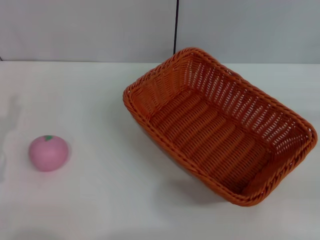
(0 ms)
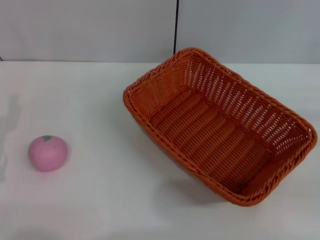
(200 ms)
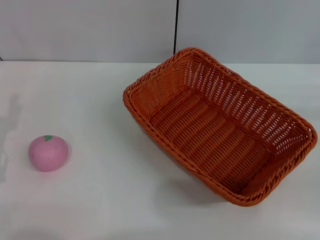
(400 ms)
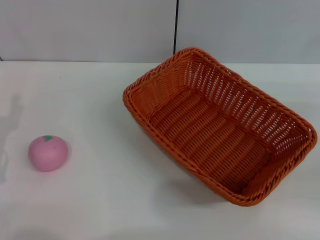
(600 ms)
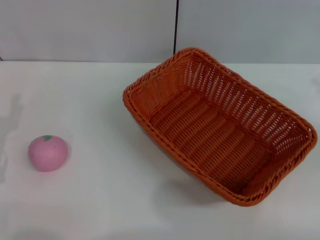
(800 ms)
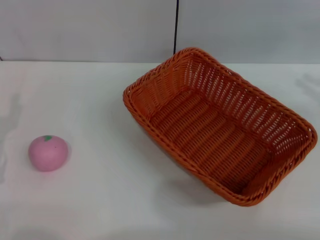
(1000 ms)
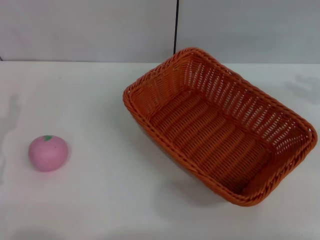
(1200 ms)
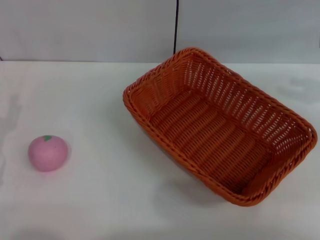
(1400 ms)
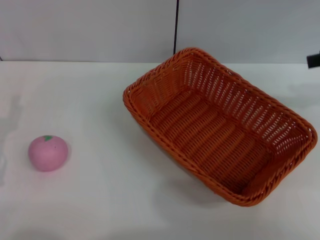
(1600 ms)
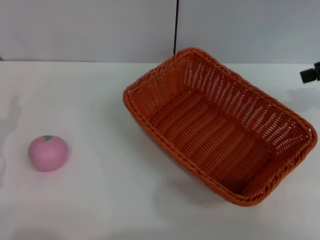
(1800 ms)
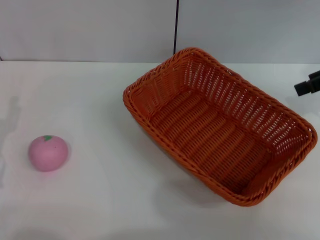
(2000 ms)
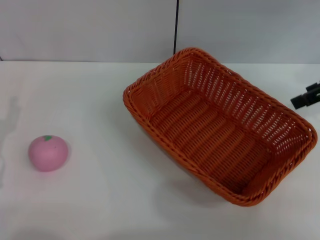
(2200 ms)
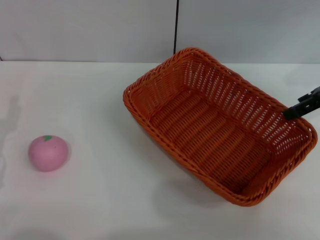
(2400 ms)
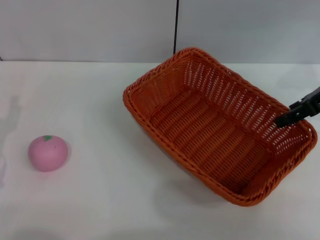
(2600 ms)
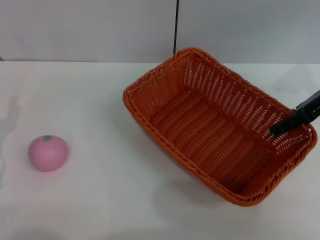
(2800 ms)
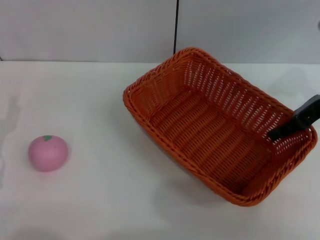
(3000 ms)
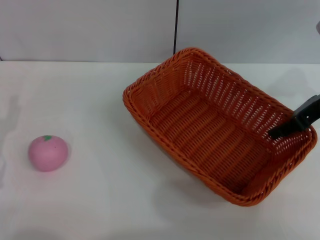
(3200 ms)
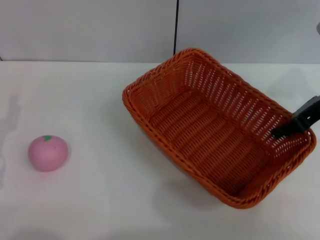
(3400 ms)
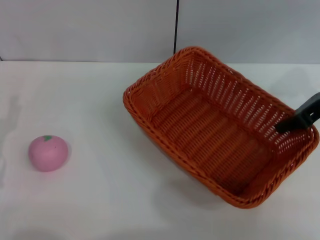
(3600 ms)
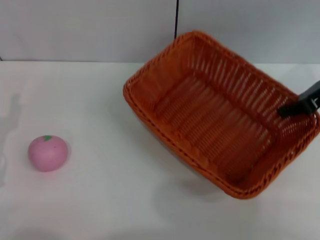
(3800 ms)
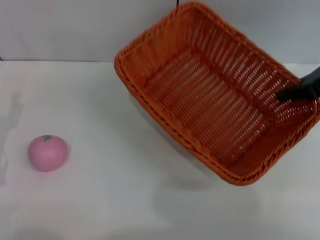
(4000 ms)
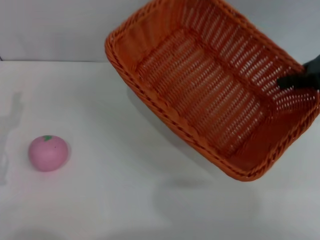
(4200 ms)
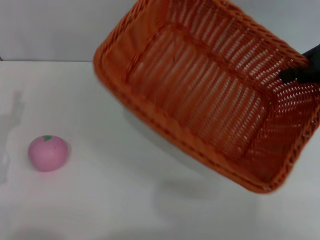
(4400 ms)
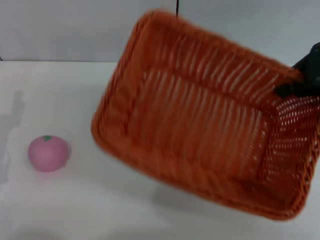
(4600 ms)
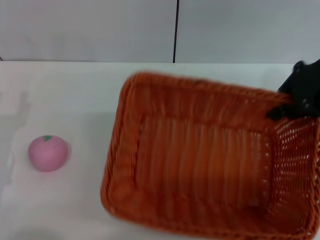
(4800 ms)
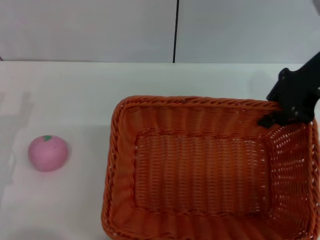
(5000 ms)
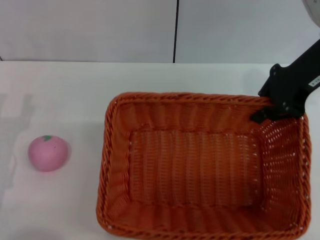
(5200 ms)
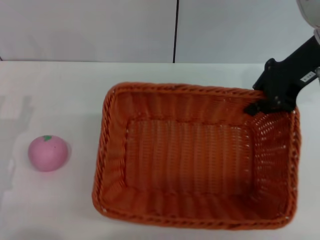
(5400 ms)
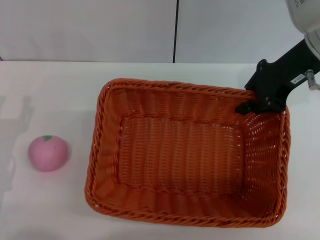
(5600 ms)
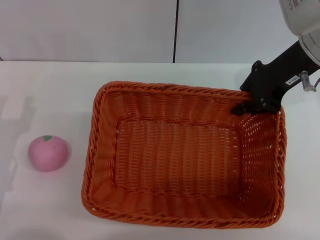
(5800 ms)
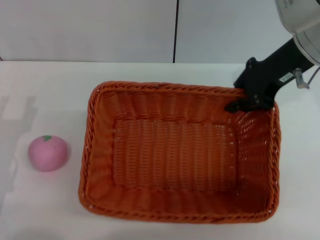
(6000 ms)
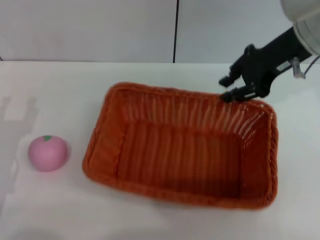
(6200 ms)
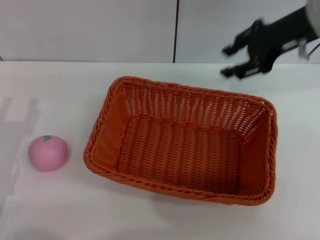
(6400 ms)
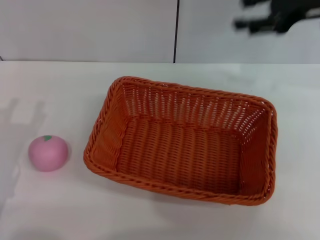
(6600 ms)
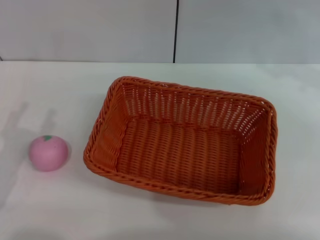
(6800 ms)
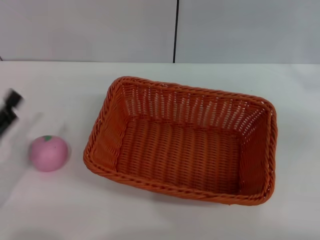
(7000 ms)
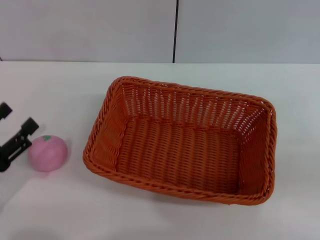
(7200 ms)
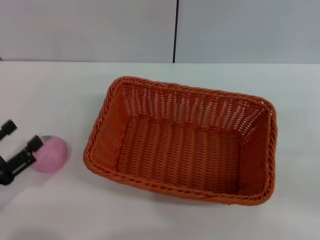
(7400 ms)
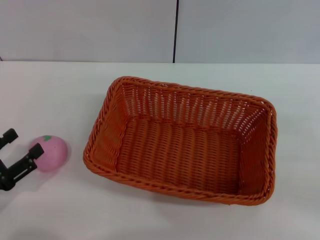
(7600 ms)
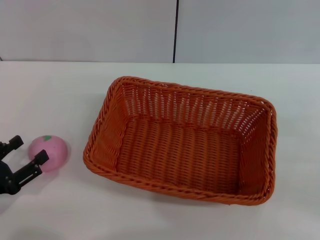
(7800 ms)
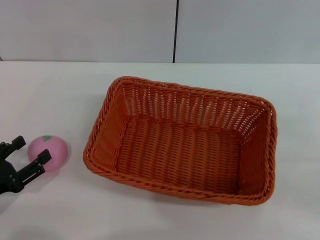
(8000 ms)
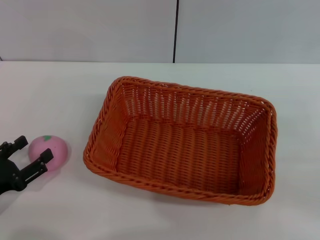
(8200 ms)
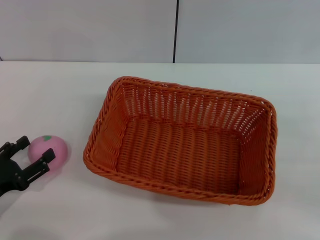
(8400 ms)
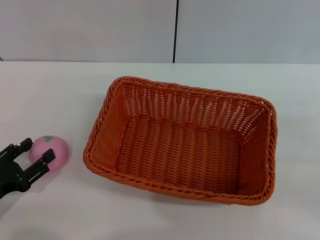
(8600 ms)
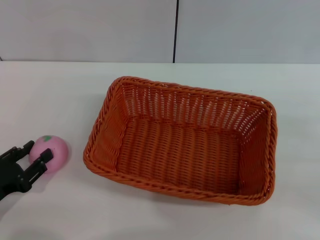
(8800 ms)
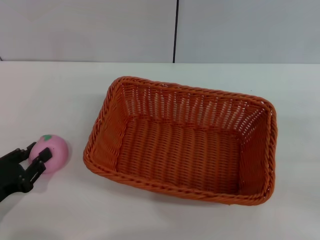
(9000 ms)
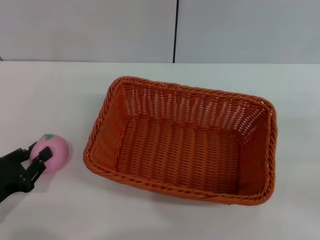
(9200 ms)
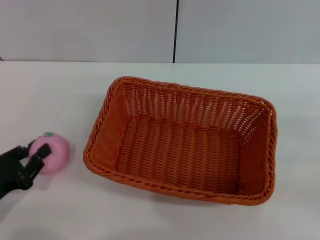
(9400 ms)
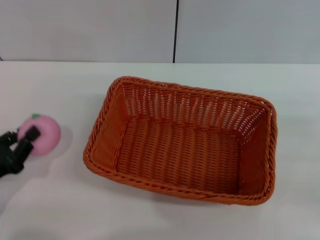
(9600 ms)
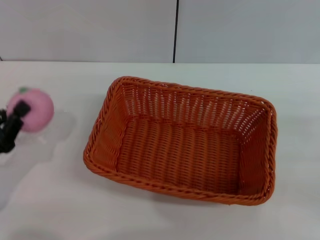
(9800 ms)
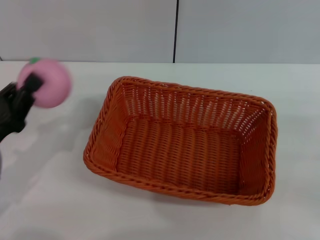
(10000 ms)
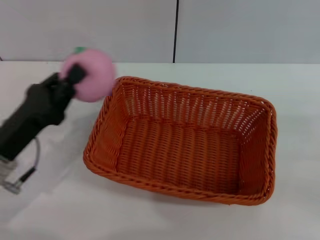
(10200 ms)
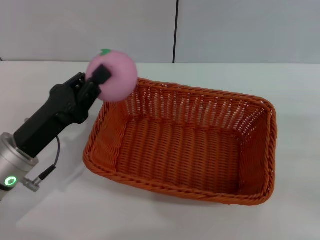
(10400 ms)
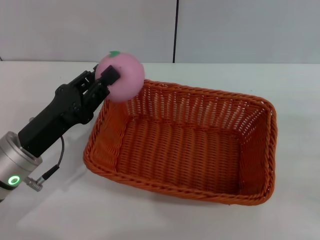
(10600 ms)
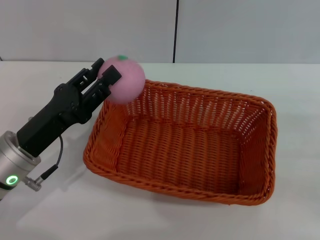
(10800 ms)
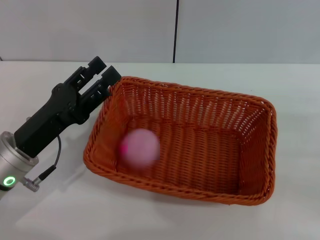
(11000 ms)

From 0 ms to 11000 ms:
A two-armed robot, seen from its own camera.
Step, from 0 ms to 3600 ms: Pick up the light basket with the right gripper.
Step, from 3800 ms to 6200 ms: Place the light basket in the center of view with the right gripper.
Step, from 6400 ms to 9600 ms: Pick up the peach with the left gripper.
From 0 ms to 1600 ms: The right gripper shifts about 20 cm upward and forward, and opens up.
From 1600 ms to 3200 ms: The right gripper heads to the left and downward, covering approximately 10 cm.
From 3200 ms to 4800 ms: The right gripper heads upward, covering some 5 cm, and closes.
From 4800 ms to 6200 ms: The right gripper ends up roughly 5 cm from where it was.
From 6200 ms to 7800 ms: The left gripper shifts by about 5 cm. Meanwhile the right gripper travels to the right, backward and downward by about 30 cm, and opens up.
From 7800 ms to 9400 ms: The left gripper closes up.
From 9400 ms to 11000 ms: The left gripper goes about 15 cm to the right, forward and upward.

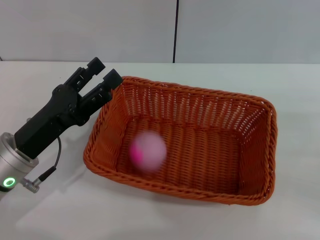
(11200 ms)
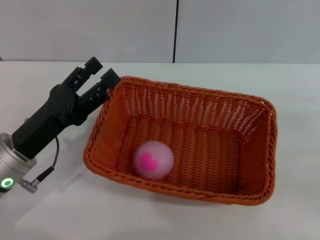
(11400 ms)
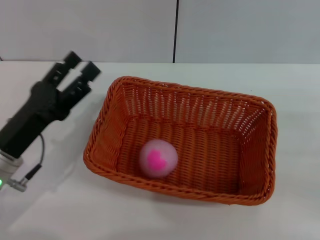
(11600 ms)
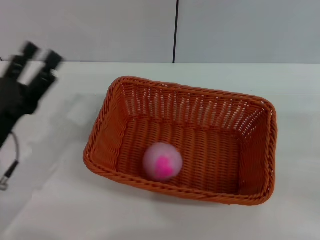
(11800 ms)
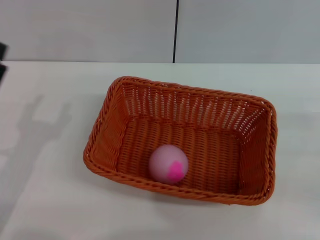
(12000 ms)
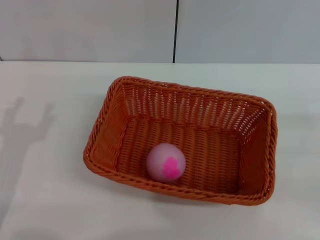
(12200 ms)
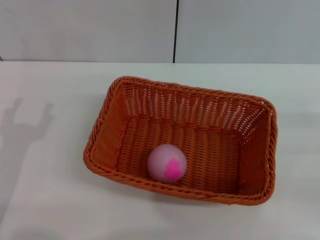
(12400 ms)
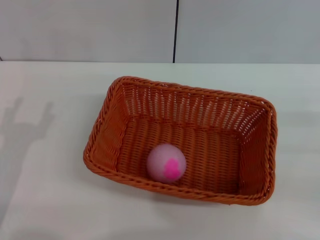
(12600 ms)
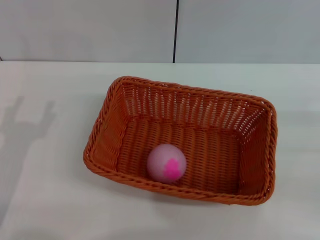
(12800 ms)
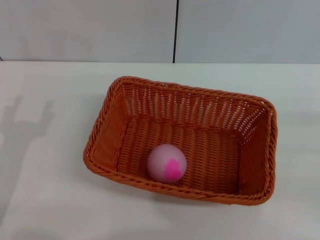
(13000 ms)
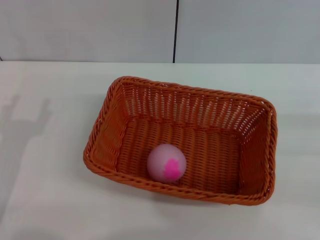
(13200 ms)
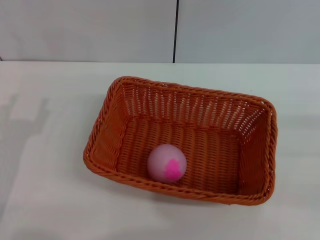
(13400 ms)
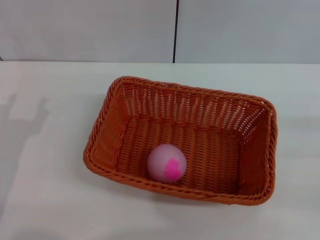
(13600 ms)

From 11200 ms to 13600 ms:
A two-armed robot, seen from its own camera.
From 11200 ms to 12400 ms: The left gripper goes roughly 5 cm to the left.

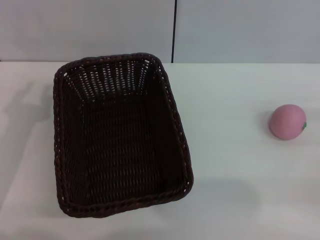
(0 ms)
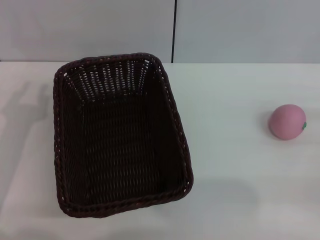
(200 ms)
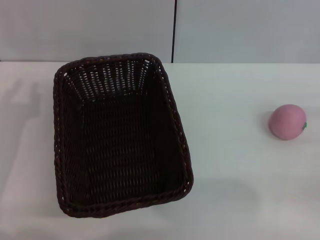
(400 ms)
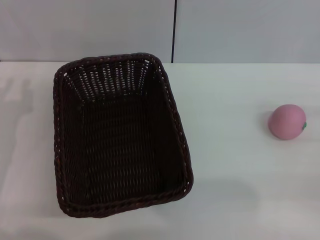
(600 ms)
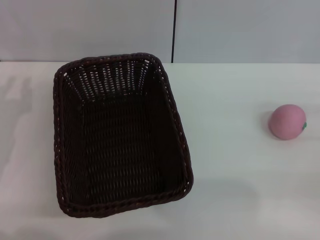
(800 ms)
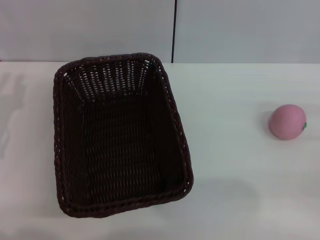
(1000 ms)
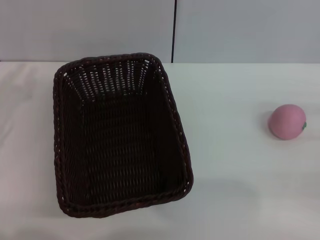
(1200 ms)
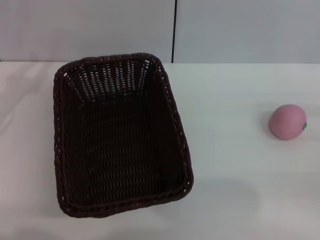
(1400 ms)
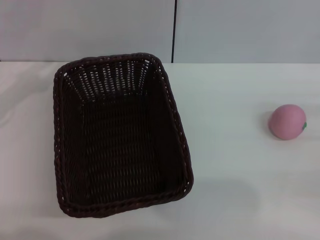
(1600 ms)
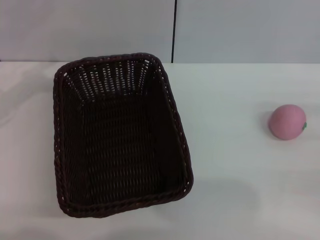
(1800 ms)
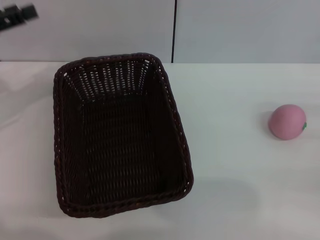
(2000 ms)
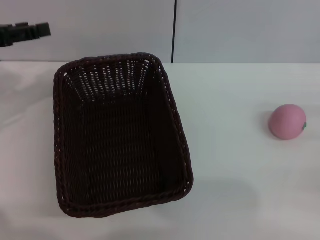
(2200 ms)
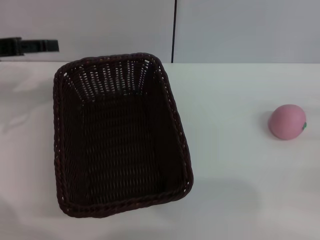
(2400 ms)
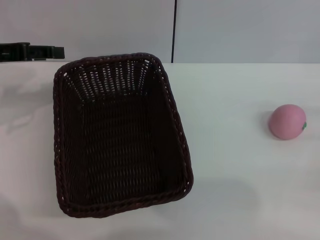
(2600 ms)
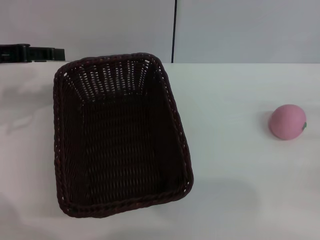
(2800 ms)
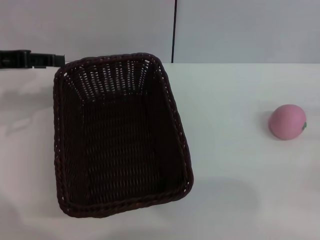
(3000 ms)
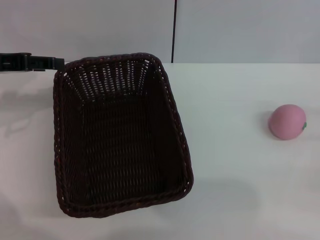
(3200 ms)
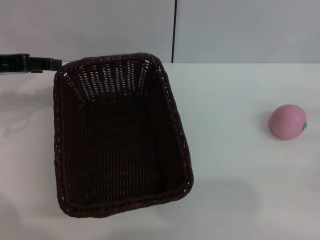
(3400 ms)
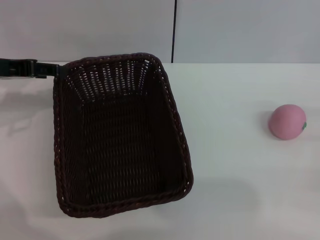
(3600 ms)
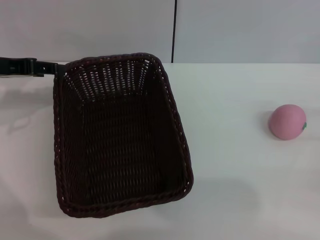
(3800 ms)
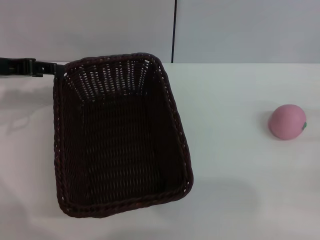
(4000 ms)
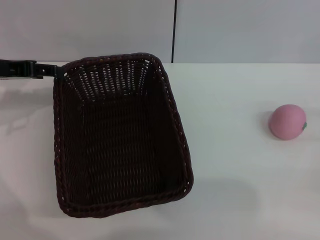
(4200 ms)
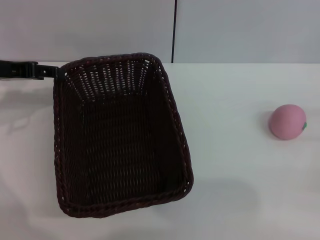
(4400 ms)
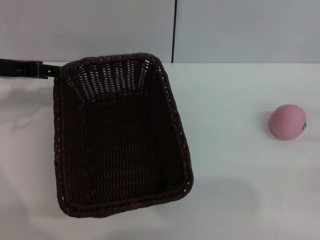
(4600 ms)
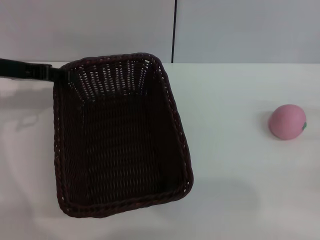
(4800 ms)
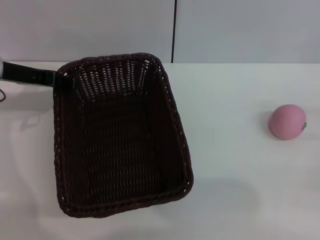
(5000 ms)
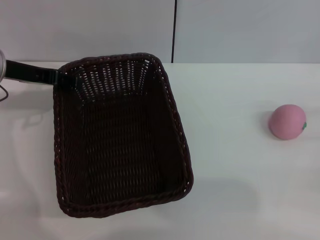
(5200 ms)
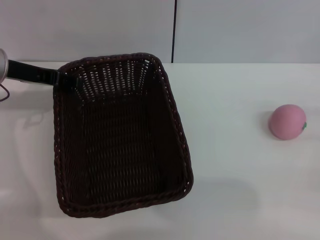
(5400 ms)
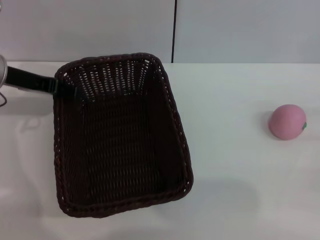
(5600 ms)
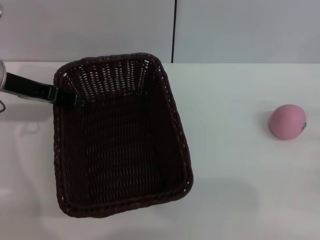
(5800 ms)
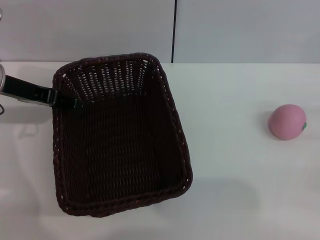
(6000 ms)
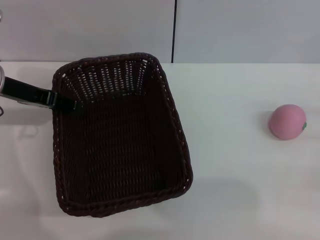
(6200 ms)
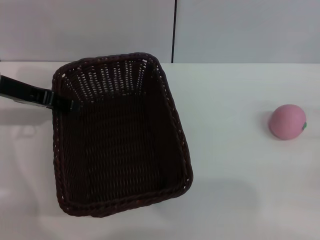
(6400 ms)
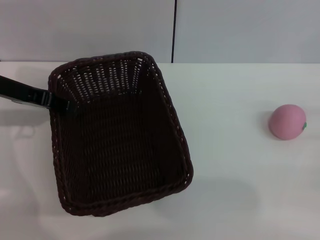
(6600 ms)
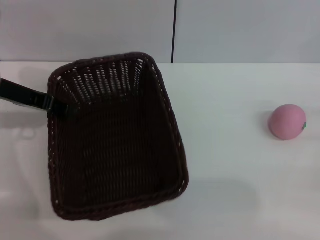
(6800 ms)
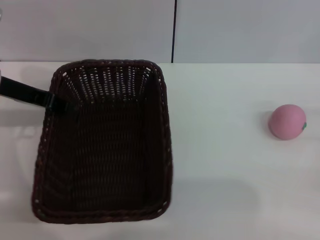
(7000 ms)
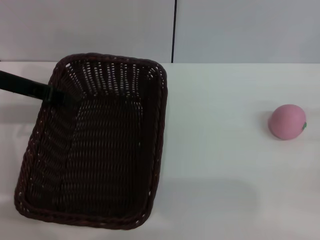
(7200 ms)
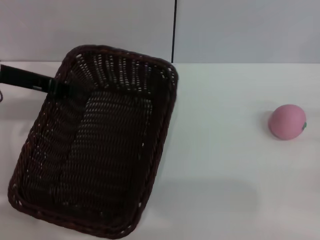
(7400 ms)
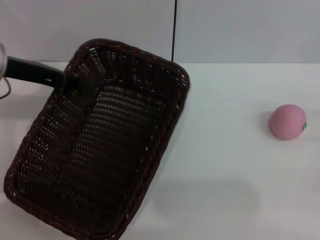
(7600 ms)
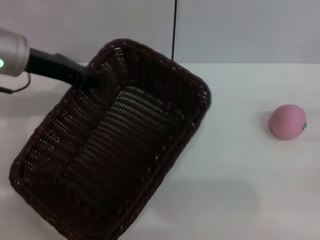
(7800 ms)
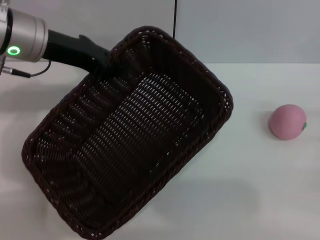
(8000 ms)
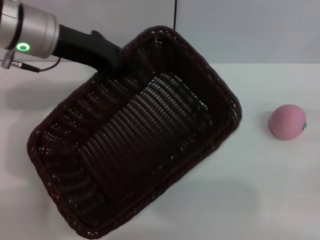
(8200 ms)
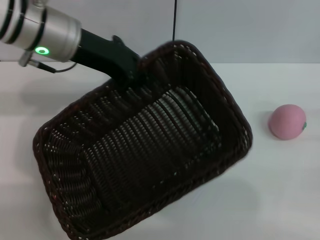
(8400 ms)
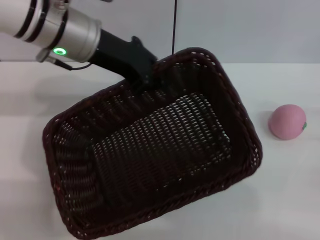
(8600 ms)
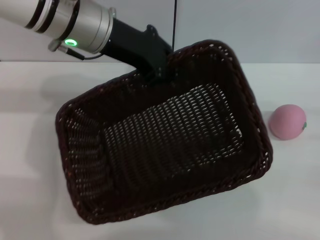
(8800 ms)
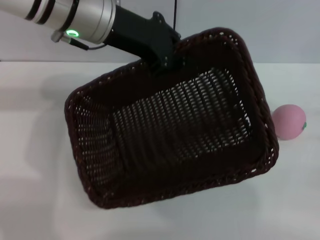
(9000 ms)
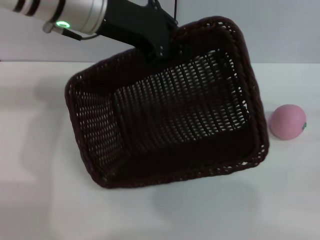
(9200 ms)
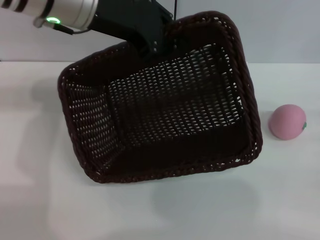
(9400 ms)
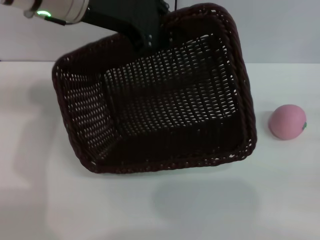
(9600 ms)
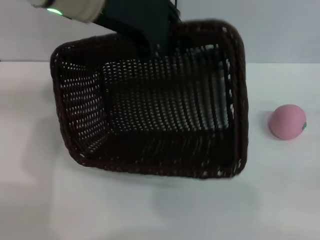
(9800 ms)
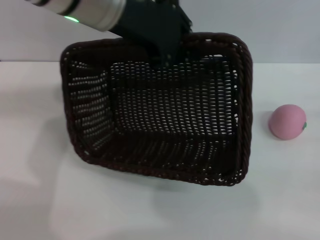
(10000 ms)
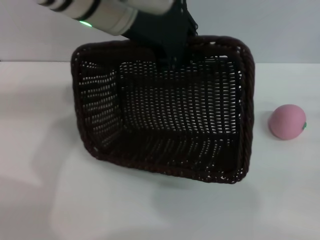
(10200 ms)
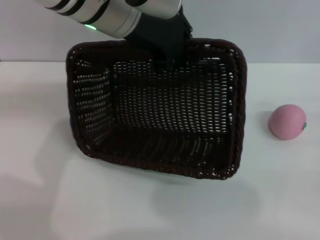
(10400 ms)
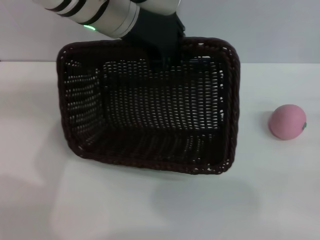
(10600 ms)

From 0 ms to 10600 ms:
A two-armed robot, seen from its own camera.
Step, from 0 ms to 7000 ms: Grasp the basket with left gripper.
From 1600 ms to 3000 ms: The left gripper goes about 5 cm to the right, and opens its fingers.
From 3000 ms to 4600 ms: The grippers move only a little.
From 4600 ms to 6000 ms: There are only small adjustments of the grippers.
From 6000 ms to 7600 ms: The left gripper closes up.
From 7600 ms to 9000 ms: The left gripper travels to the right and upward by about 15 cm.
